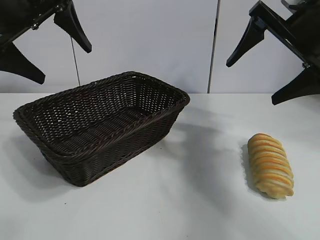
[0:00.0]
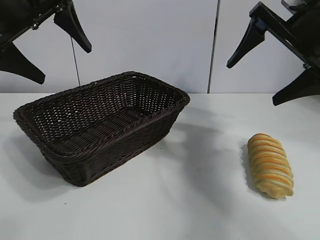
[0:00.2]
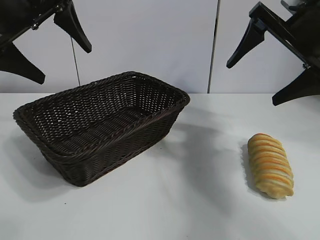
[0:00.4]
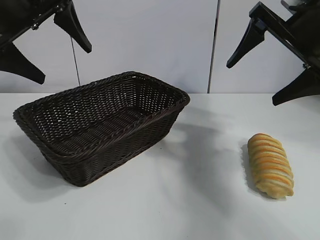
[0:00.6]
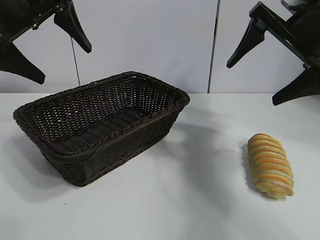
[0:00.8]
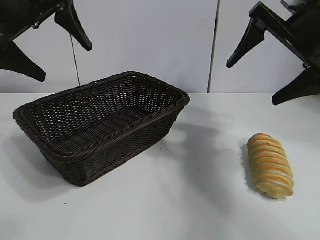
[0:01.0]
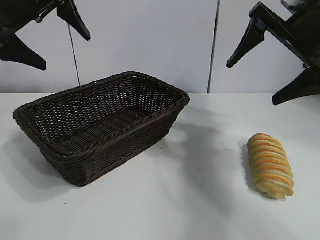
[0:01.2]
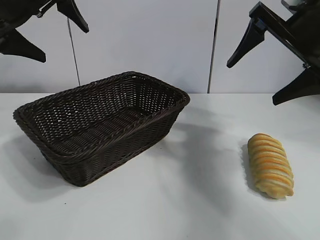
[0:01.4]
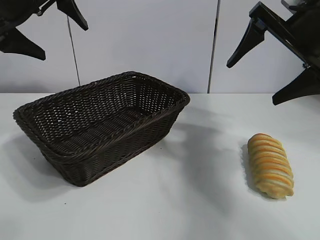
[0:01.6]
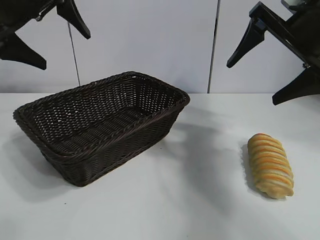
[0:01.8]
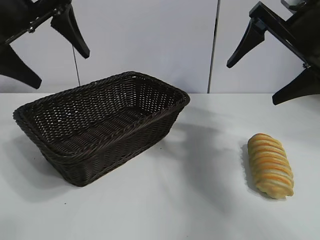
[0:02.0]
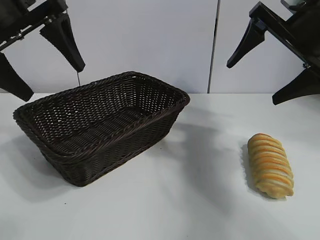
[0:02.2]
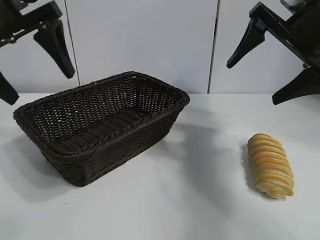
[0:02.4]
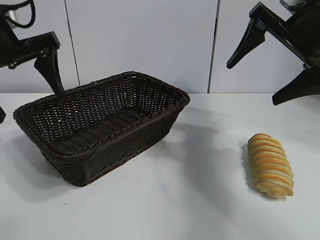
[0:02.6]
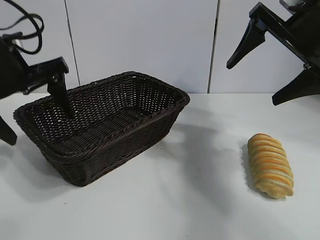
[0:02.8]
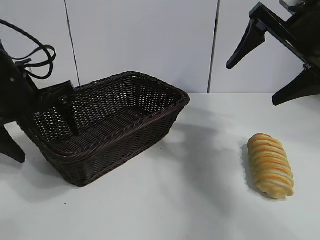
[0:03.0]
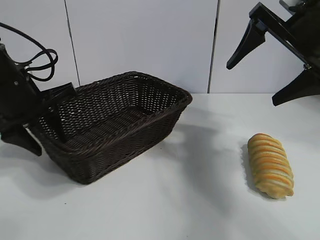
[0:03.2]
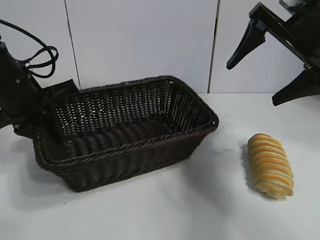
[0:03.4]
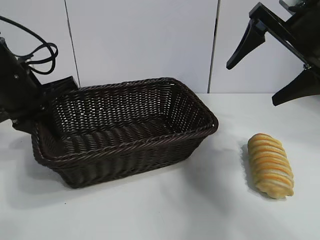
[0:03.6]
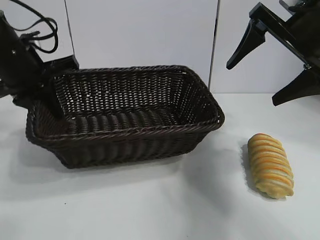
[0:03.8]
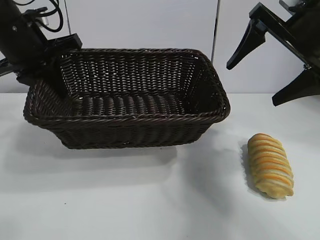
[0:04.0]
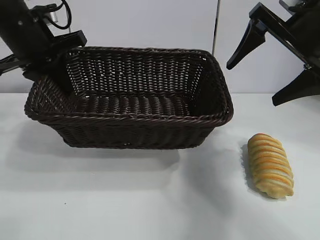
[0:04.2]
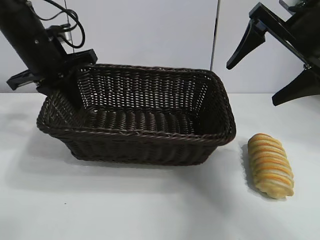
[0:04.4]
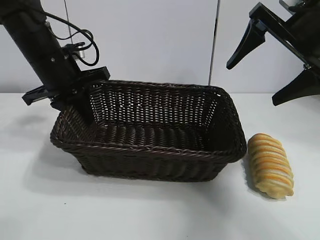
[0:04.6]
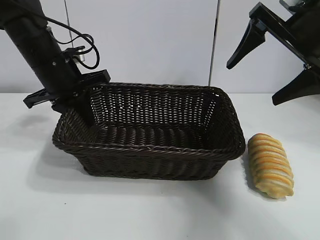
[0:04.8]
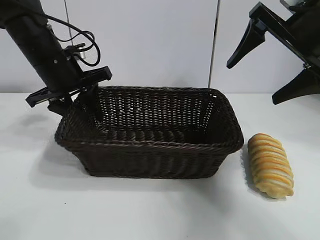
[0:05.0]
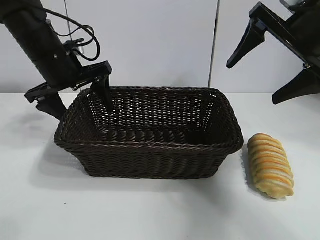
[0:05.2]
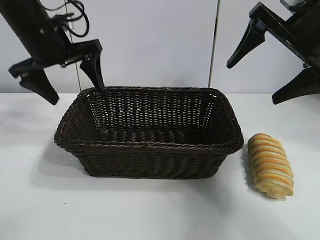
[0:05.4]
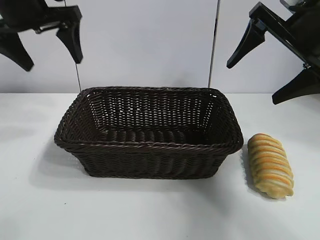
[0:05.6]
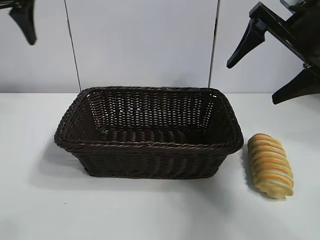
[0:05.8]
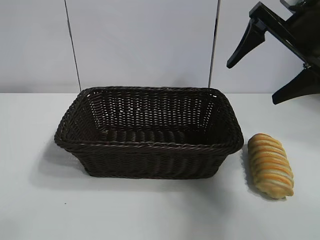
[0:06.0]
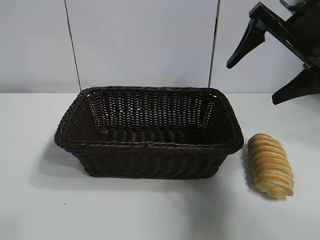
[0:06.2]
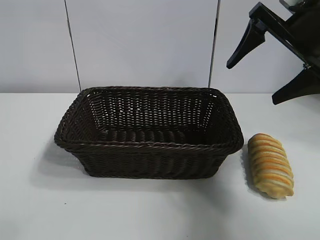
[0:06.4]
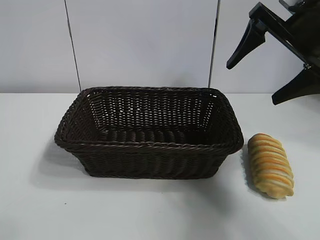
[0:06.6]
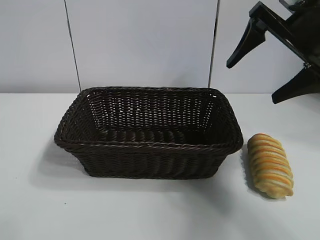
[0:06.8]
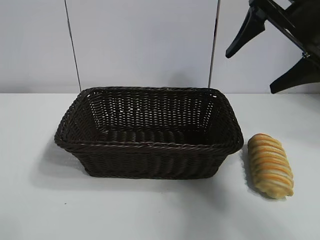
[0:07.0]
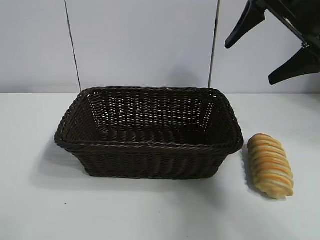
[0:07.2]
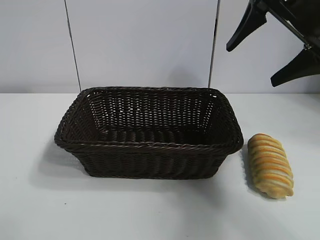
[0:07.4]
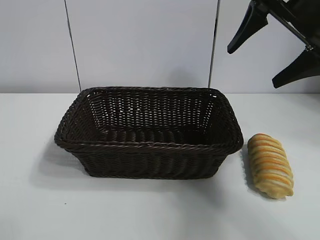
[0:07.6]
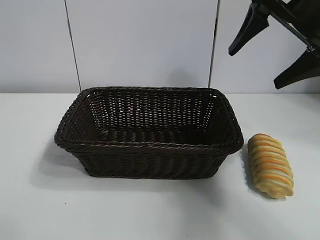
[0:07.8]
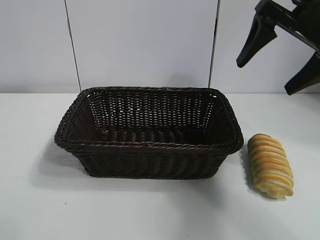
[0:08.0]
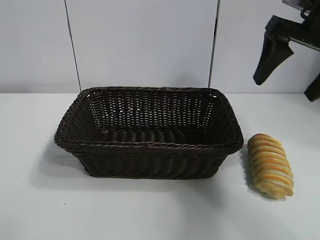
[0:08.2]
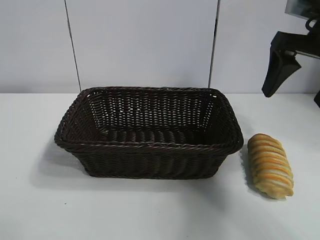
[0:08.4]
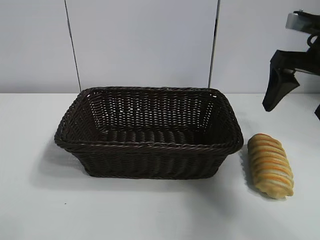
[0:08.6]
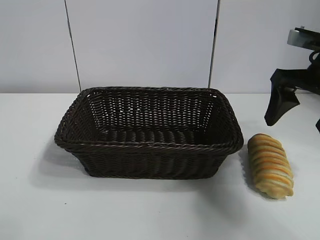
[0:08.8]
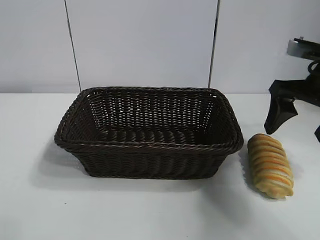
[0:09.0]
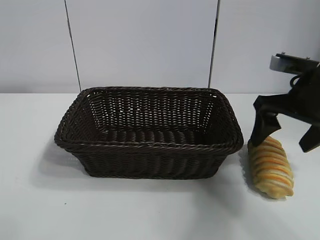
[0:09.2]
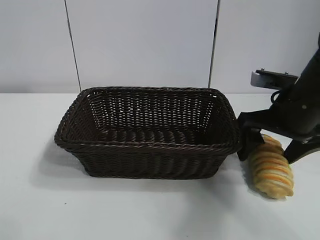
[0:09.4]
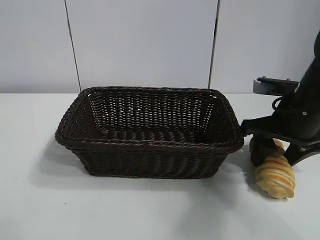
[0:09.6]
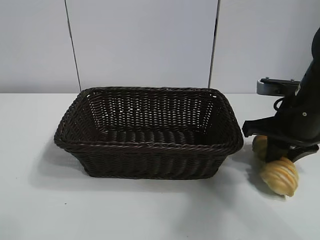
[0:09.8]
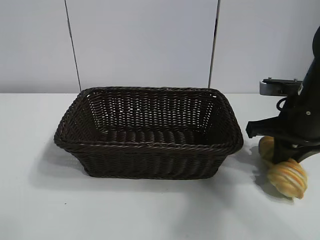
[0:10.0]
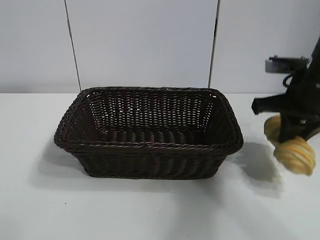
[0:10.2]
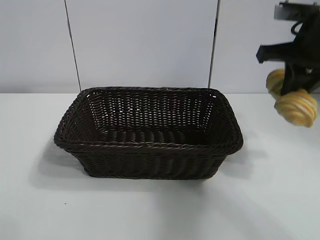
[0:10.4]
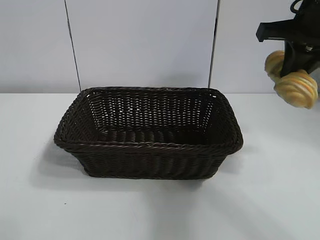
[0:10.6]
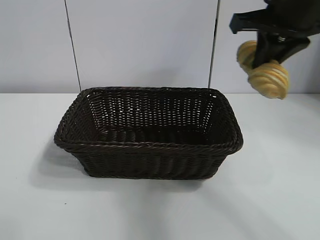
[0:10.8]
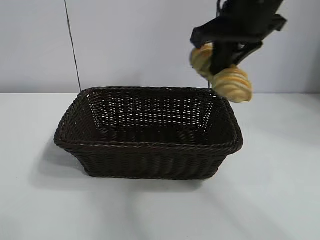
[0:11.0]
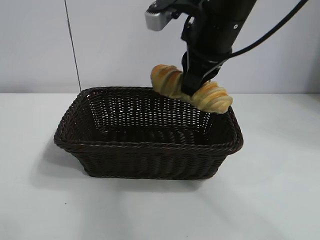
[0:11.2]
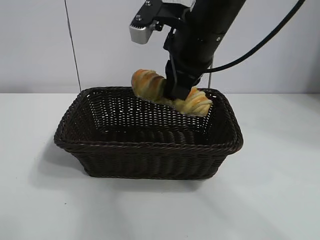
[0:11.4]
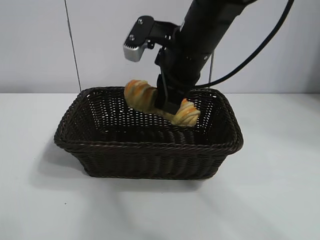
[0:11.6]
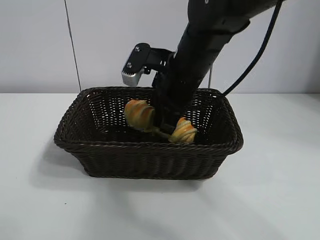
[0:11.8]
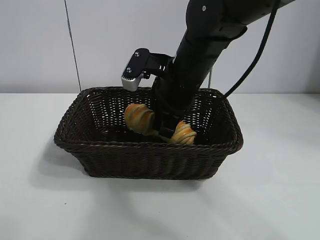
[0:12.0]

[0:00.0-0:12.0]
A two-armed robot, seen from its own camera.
Task of the whole recording: pick up the long bread and put it into the basket.
Step, 0:01.0 to 0:03.2: Grasp the basket with the left gripper.
Step, 0:03.4 to 0:05.0: Place the basket in the center of the table with the left gripper.
Step, 0:05.4 to 0:09.8: Grasp the long bread with right gripper.
